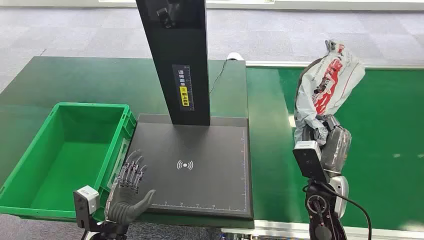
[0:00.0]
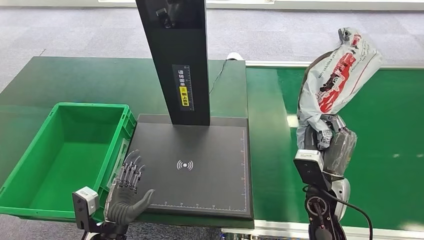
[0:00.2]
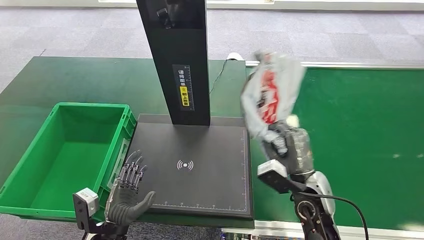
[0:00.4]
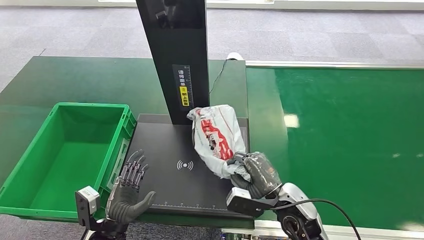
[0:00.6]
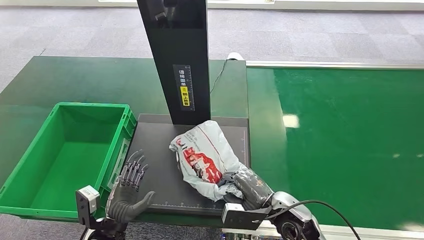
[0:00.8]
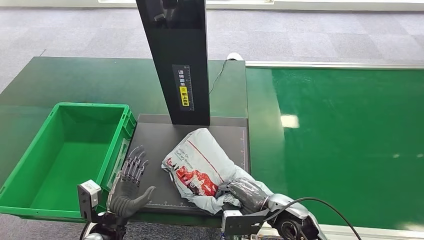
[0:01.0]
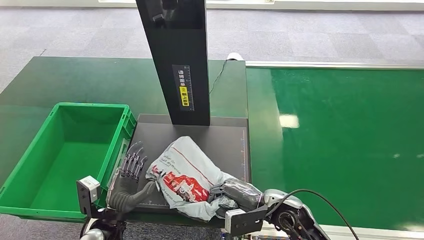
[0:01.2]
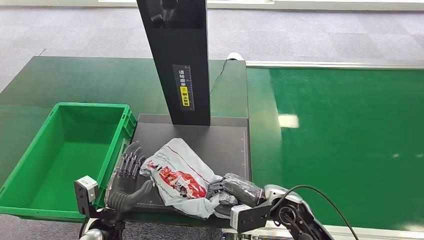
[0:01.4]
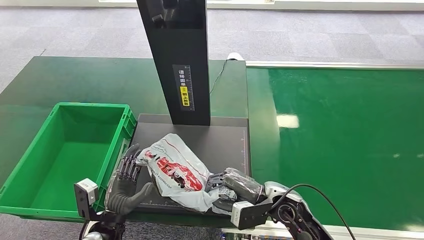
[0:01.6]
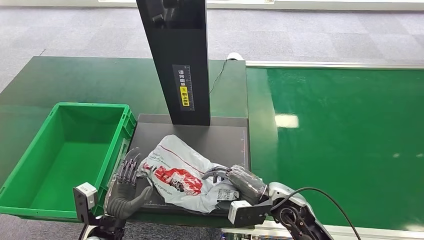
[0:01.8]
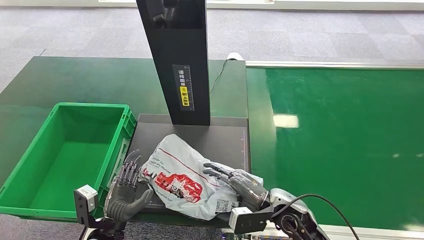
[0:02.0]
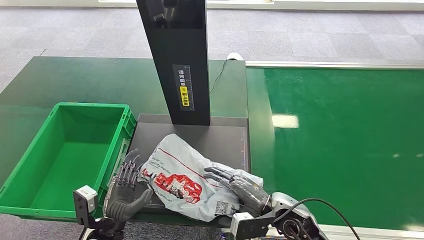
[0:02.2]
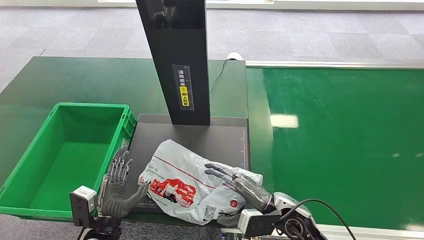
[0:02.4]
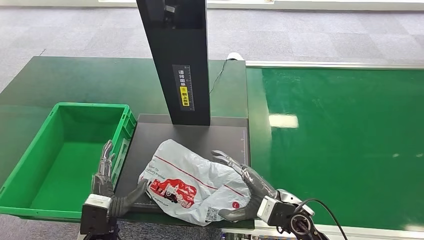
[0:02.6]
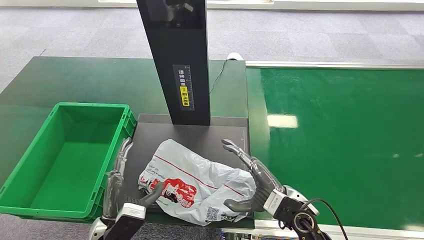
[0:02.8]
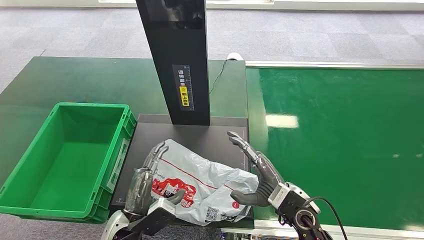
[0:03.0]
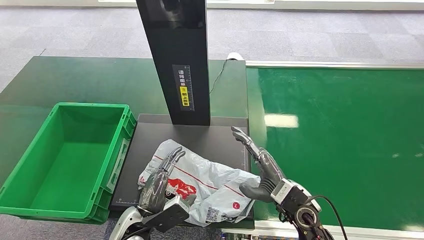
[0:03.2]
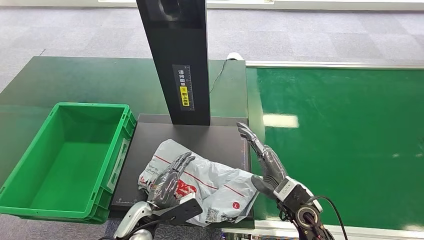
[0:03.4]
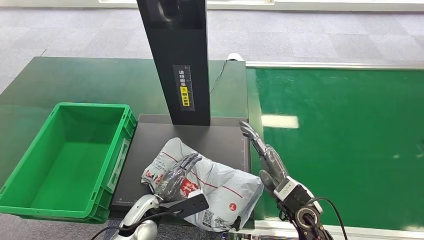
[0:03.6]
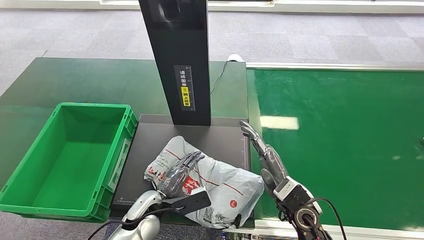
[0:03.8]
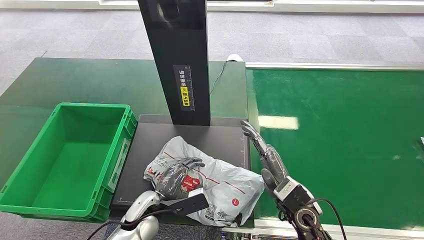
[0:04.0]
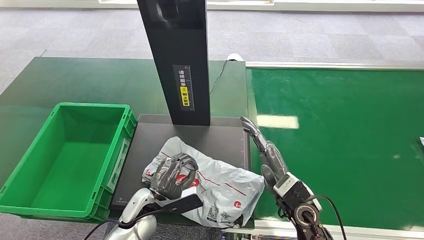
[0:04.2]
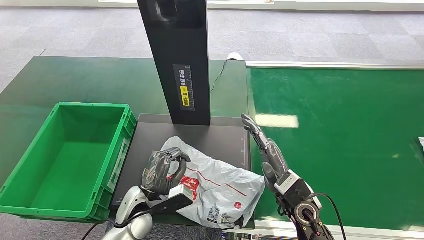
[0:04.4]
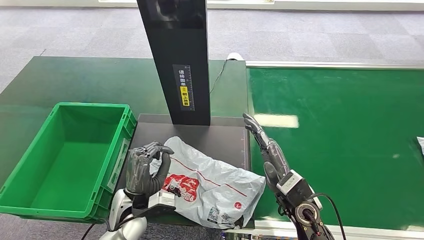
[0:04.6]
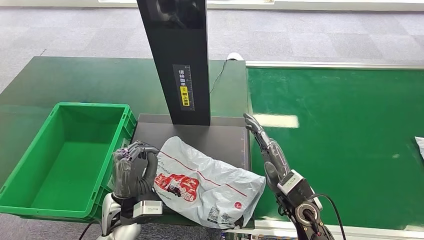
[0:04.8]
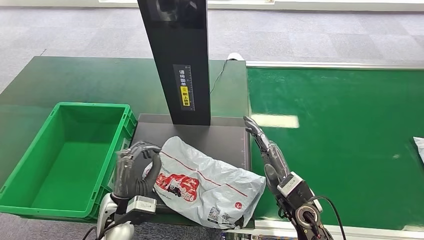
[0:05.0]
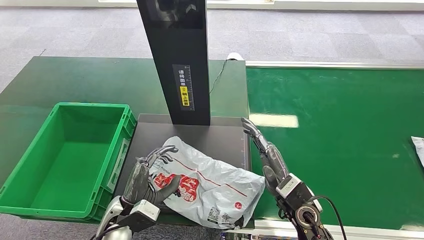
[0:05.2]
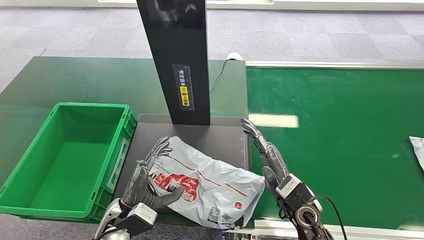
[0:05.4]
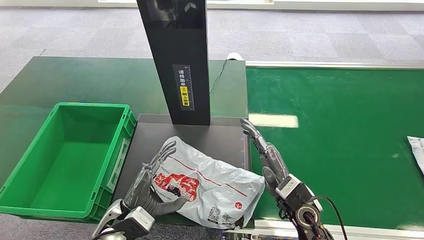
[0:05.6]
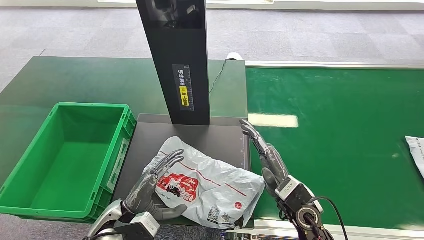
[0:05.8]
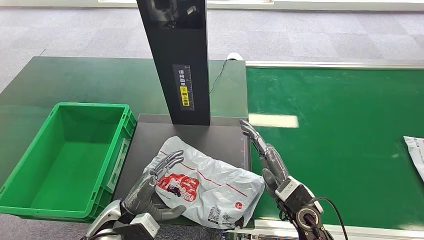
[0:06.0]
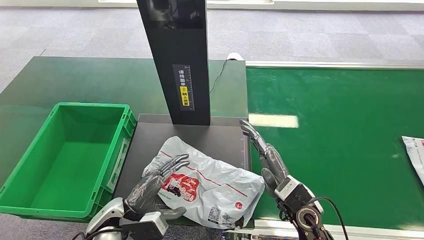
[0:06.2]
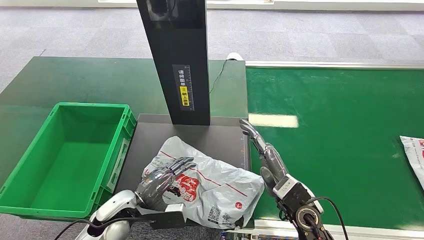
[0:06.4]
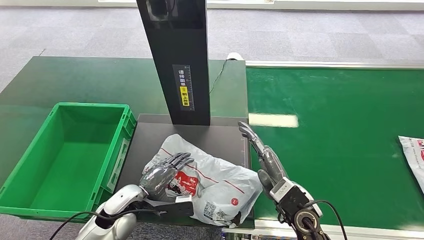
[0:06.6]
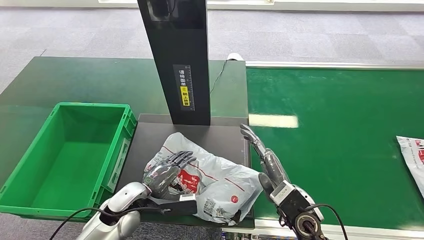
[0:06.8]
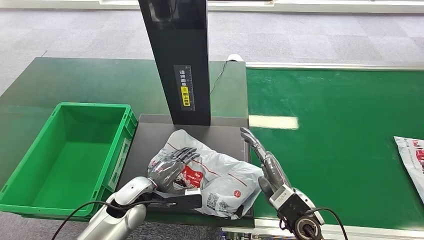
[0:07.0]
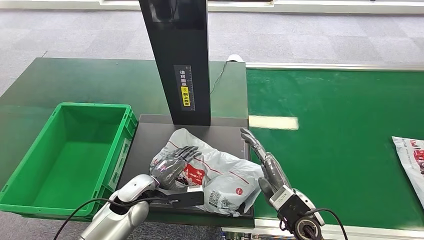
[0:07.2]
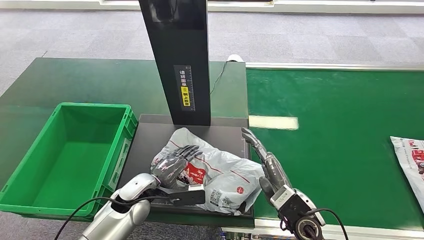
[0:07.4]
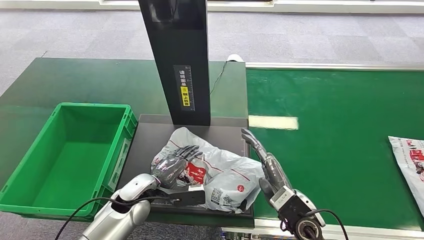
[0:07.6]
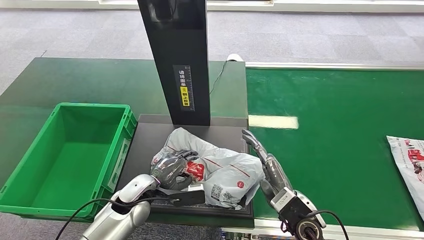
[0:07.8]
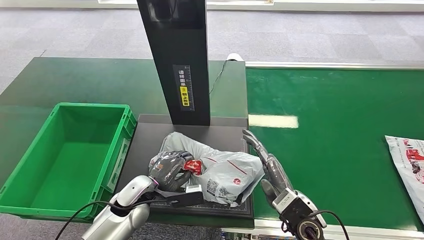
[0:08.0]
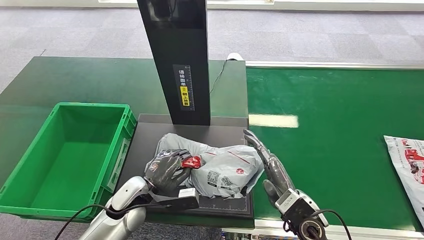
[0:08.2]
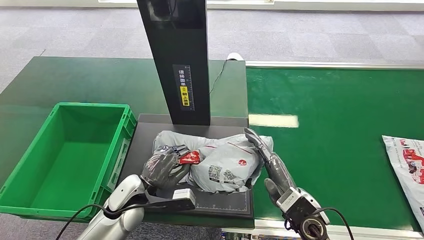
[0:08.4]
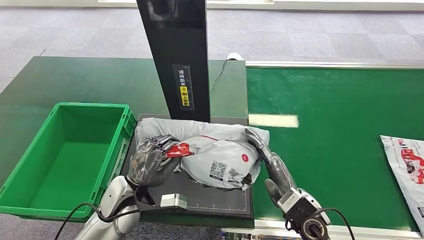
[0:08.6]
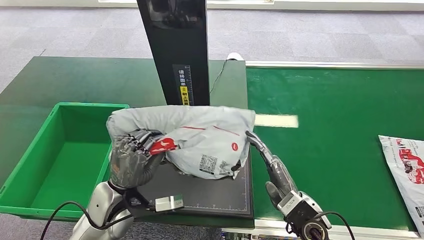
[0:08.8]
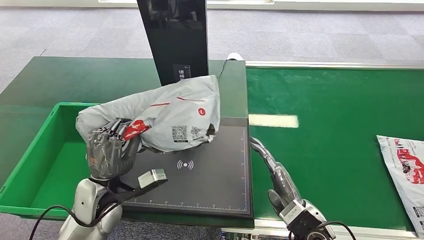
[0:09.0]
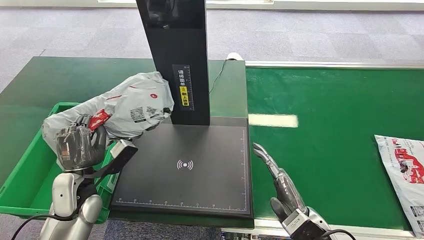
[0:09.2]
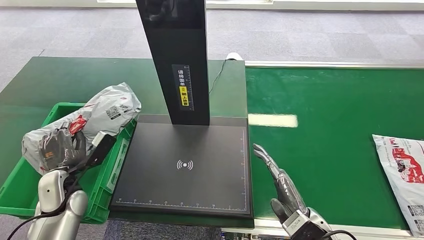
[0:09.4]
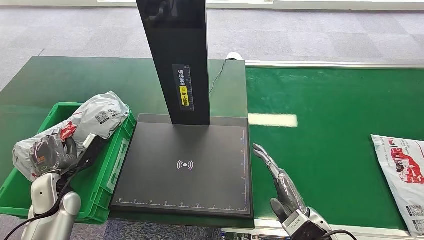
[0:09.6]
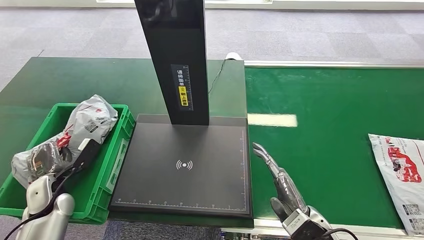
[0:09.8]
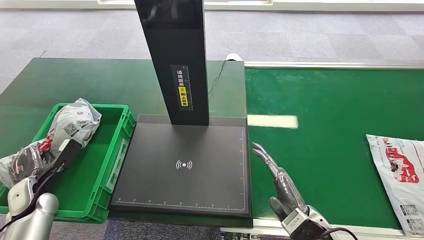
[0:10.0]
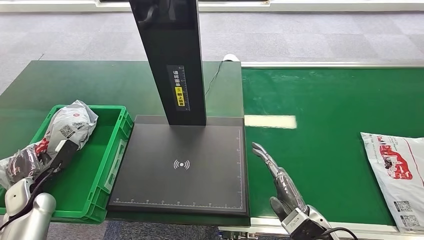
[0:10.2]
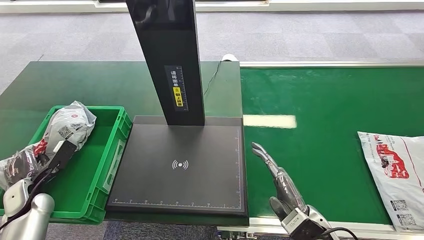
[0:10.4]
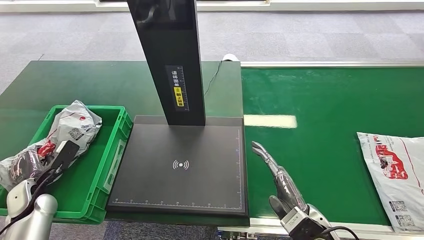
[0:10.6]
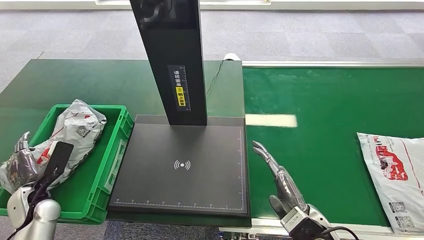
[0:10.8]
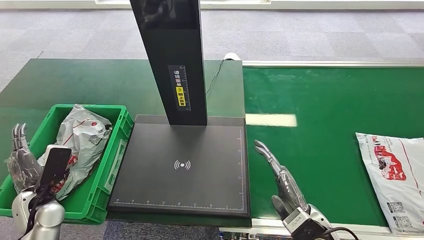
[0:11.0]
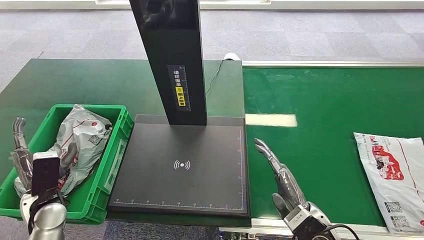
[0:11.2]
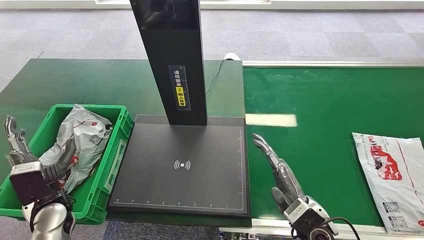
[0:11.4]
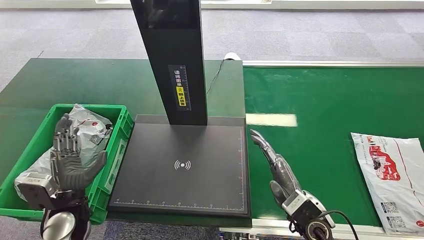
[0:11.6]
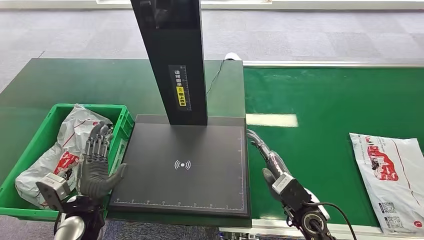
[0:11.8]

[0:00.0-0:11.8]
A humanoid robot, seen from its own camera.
0:01.4 to 0:03.0: The left hand moves to the right, roughly 5 cm.
0:03.0 to 0:04.4: The left hand goes approximately 5 cm forward.
0:04.4 to 0:06.0: The left hand changes place by approximately 5 cm.

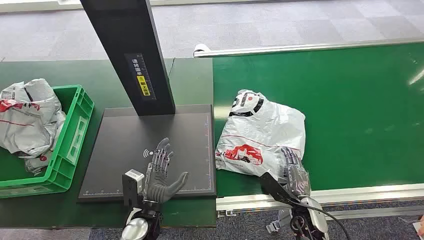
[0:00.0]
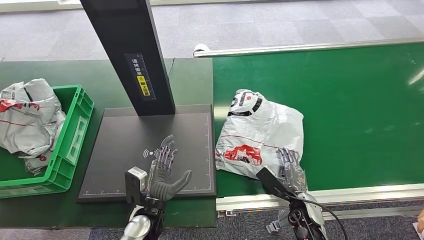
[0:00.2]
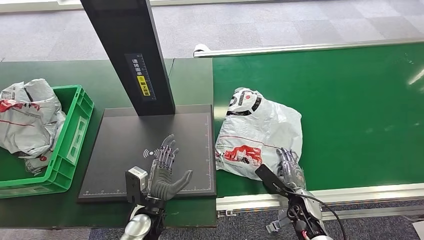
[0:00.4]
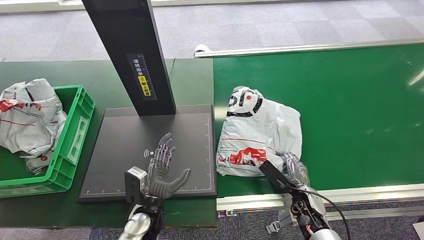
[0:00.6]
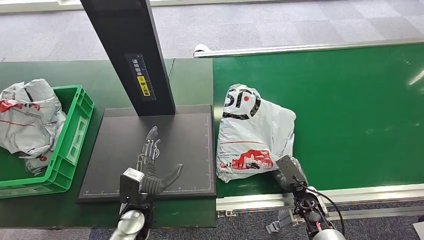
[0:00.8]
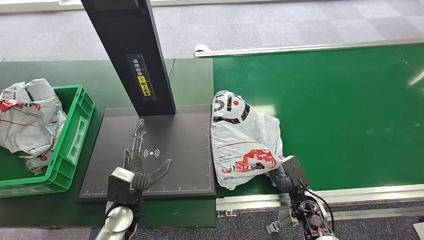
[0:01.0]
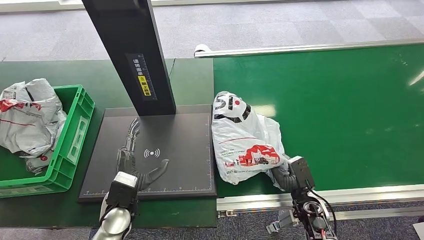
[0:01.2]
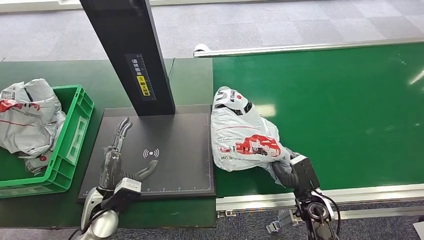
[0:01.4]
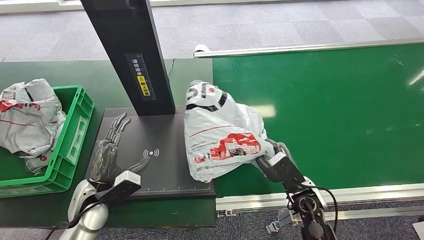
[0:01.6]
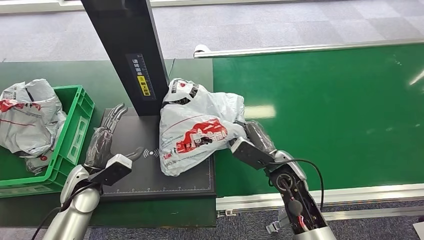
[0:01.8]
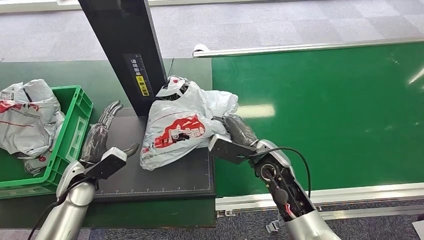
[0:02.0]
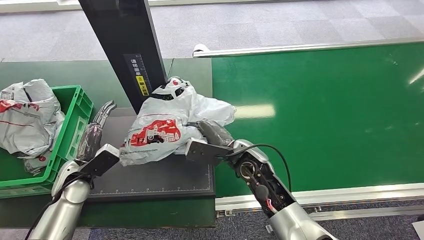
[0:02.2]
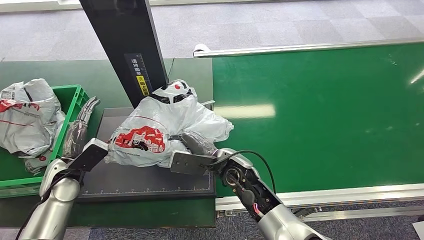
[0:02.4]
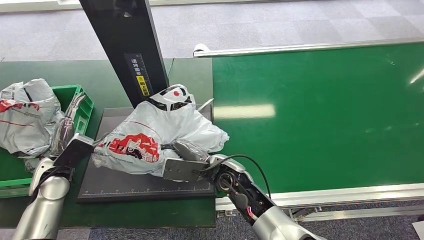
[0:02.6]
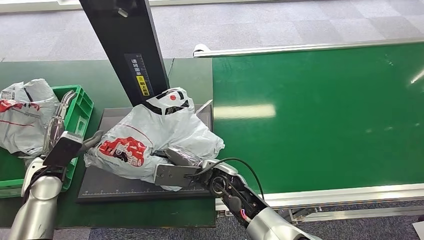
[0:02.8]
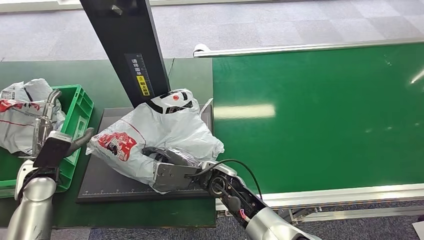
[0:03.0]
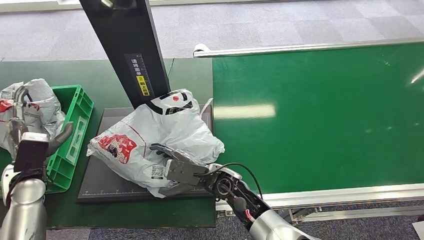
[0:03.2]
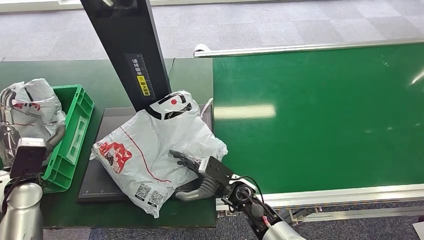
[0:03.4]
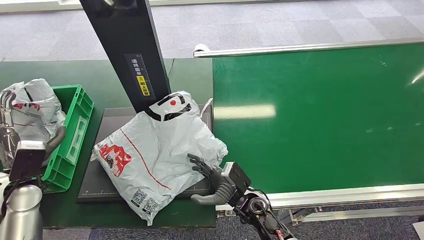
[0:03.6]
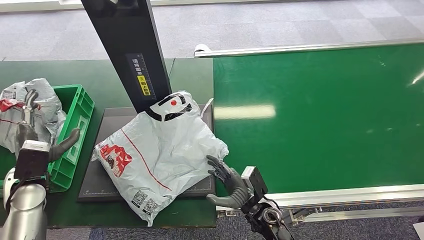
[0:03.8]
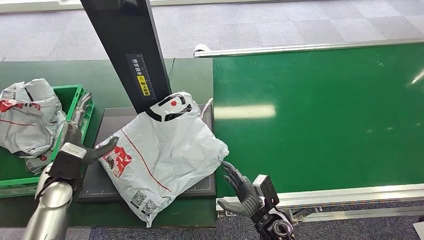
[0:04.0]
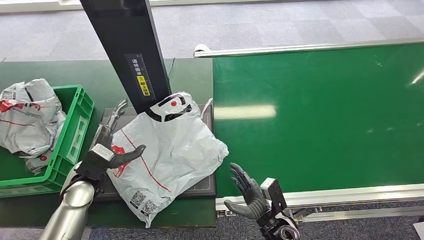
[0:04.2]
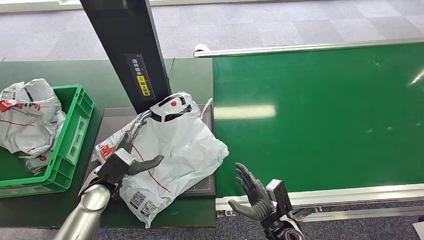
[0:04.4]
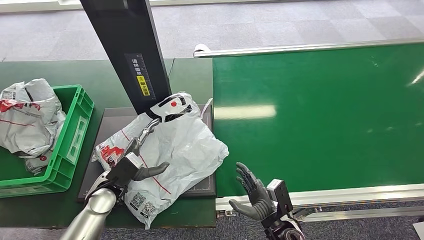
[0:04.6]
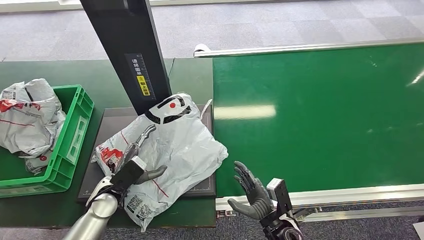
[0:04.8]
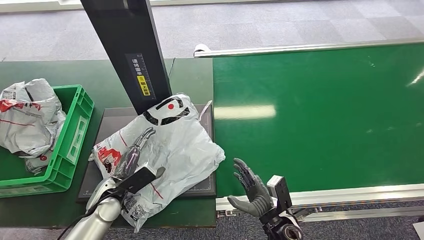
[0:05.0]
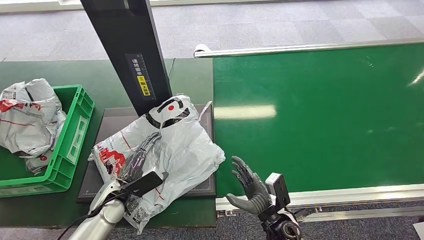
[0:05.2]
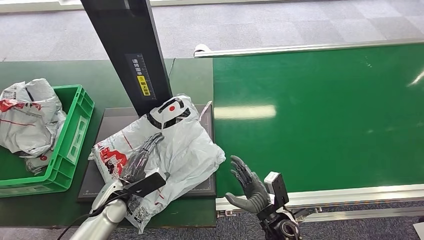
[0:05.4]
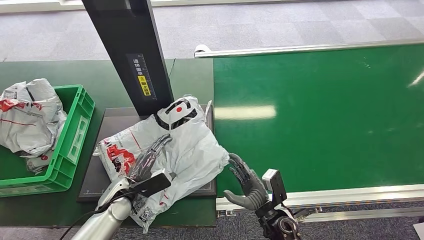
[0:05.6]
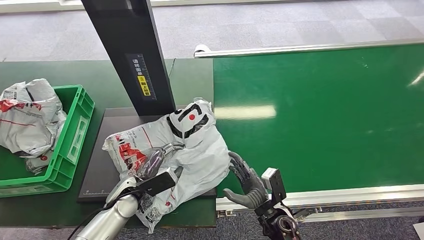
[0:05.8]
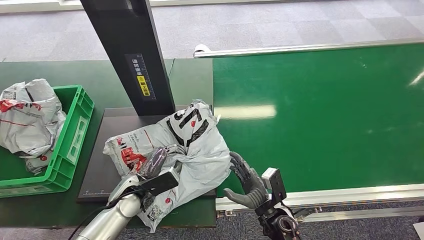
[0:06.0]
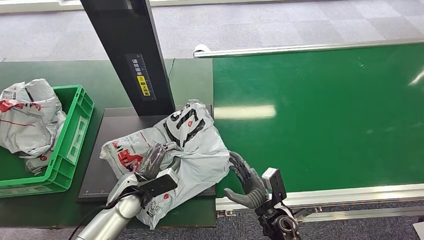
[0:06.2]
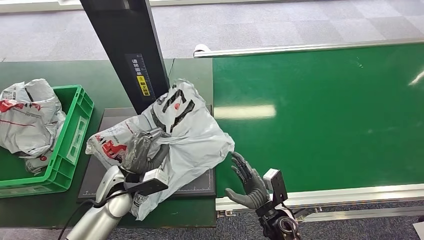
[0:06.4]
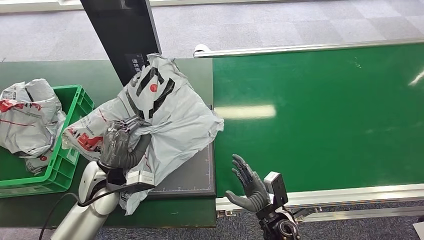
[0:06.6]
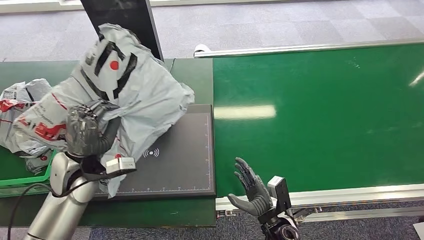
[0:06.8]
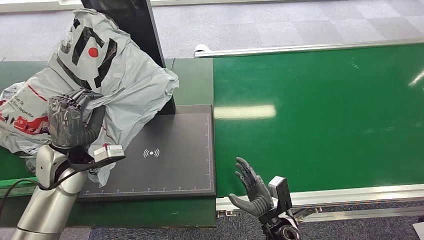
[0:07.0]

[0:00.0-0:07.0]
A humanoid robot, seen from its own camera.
Step, 0:00.0 to 0:01.8: Pick up the package from the conveyor belt.
Step, 0:02.2 to 0:04.0: Place the package onto the inbound machine.
0:02.8 to 0:04.2: The right hand goes about 25 cm to the right, downward and backward. Meanwhile the left hand travels to the right by roughly 10 cm.
0:04.2 to 0:05.6: The left hand is displaced downward and to the right by roughly 10 cm.
